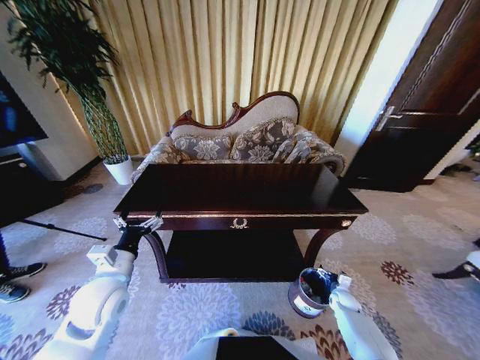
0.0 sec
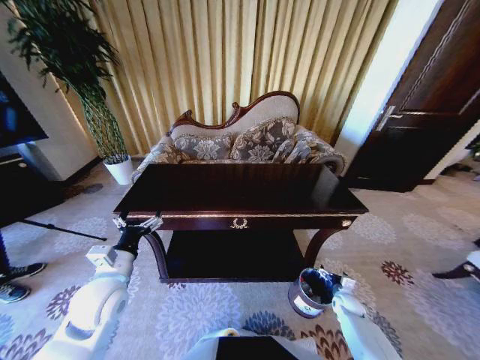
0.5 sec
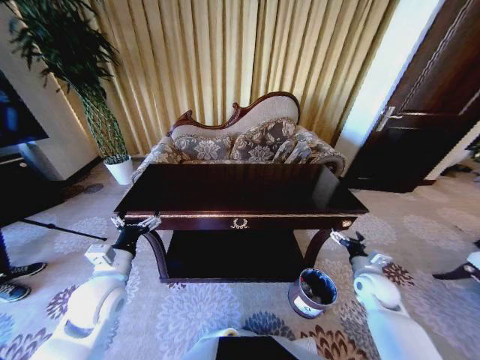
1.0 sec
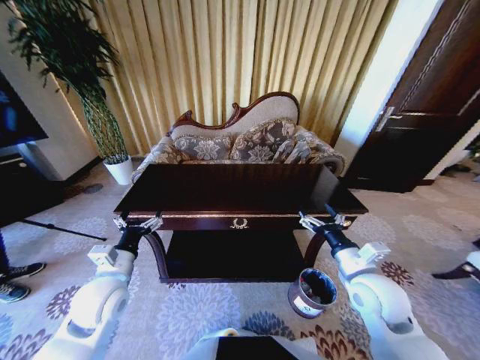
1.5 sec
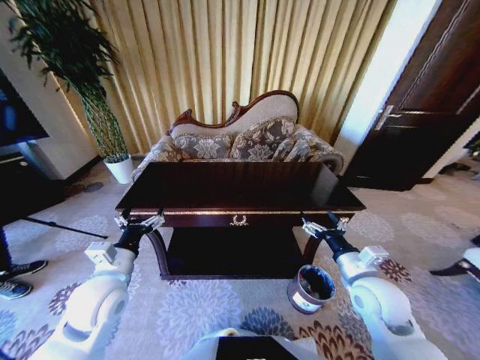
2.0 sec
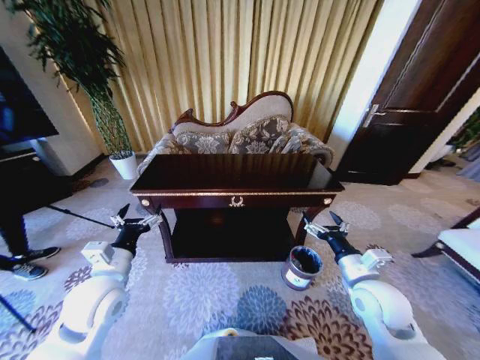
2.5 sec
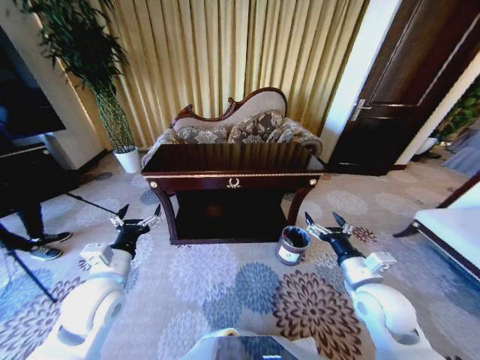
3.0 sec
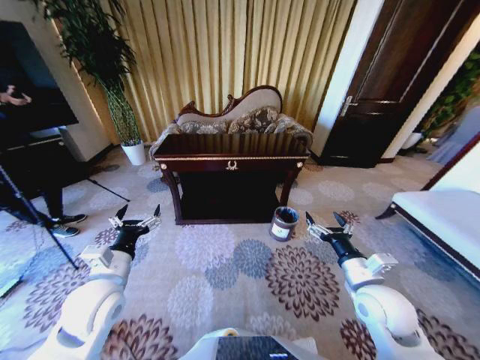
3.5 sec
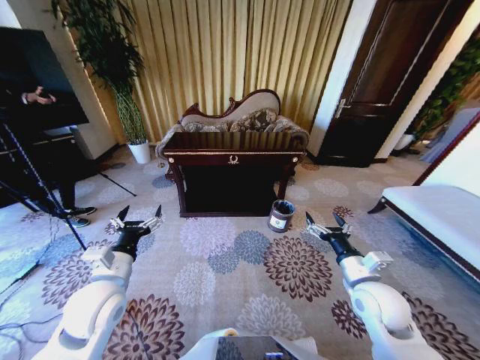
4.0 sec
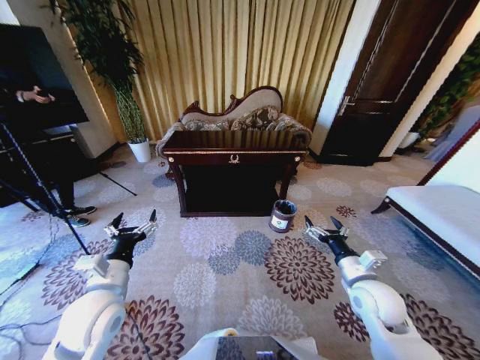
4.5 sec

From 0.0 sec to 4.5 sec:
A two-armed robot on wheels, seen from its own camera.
Task of the whole recording: Move to the front of the table and place the trash on the table into the trash bin.
From 0.0 sec to 2.0 sec: The right gripper goes approximately 35 cm upward and to the left.

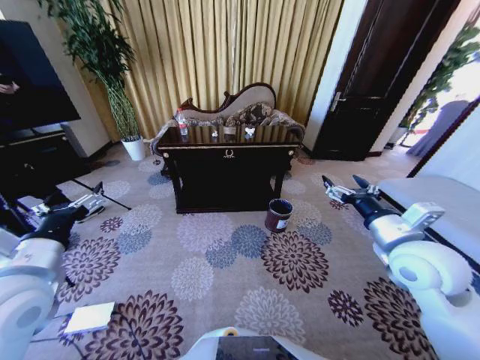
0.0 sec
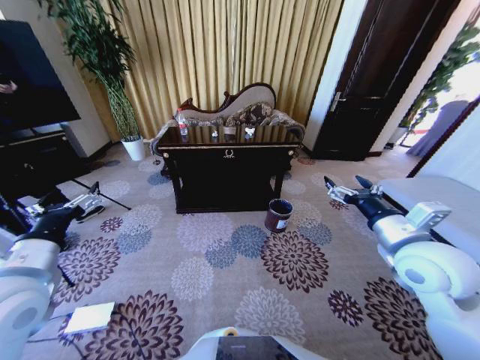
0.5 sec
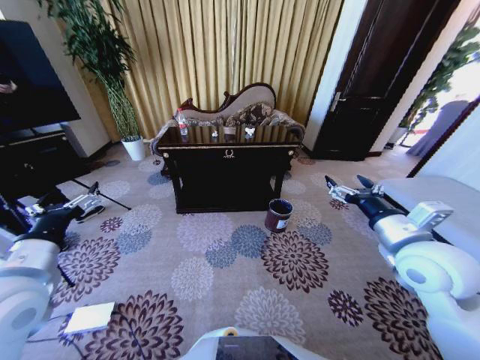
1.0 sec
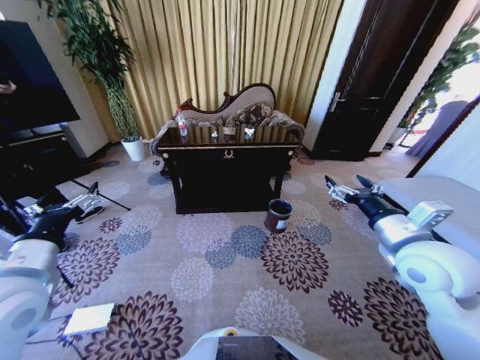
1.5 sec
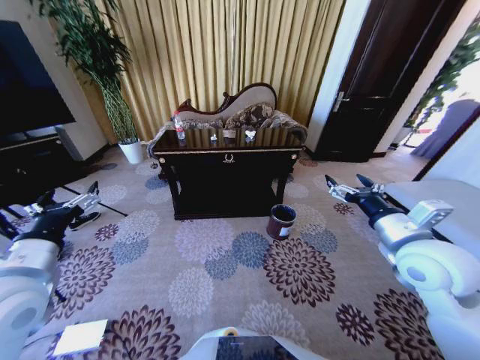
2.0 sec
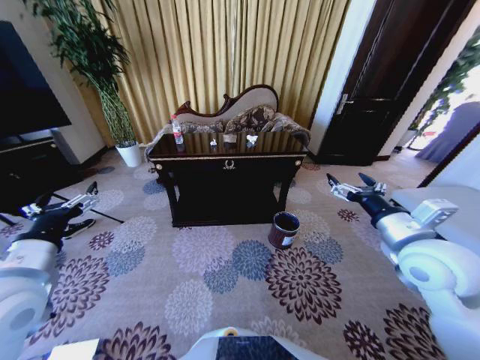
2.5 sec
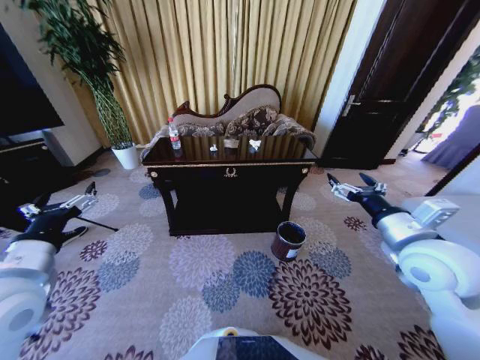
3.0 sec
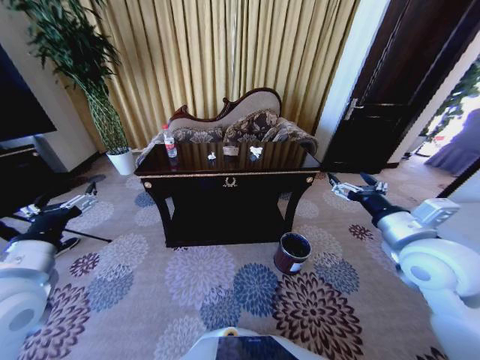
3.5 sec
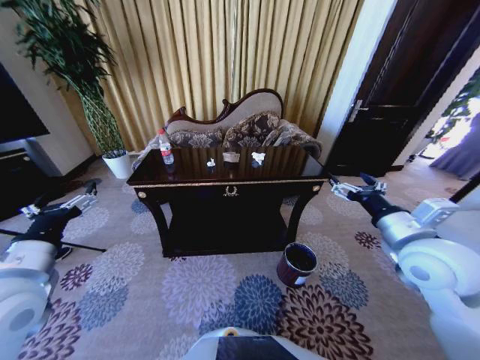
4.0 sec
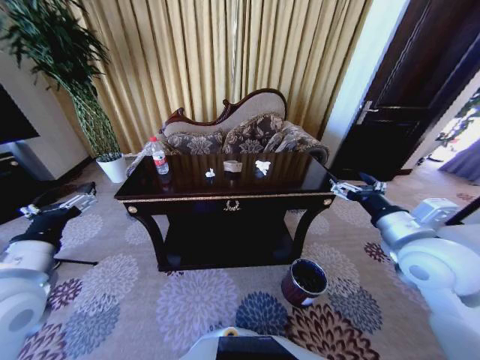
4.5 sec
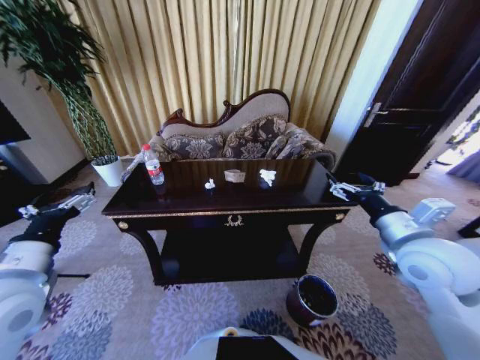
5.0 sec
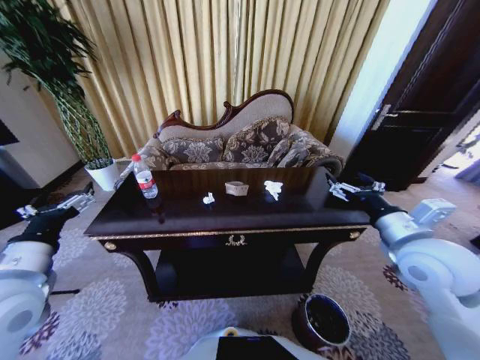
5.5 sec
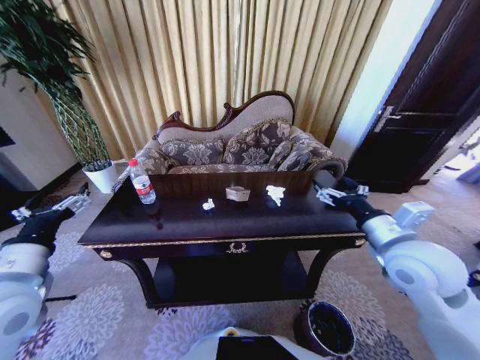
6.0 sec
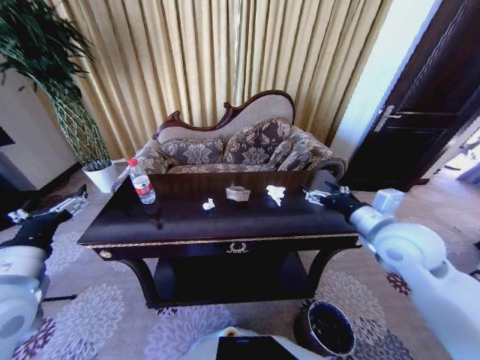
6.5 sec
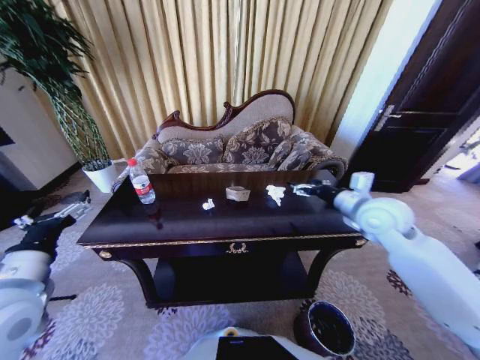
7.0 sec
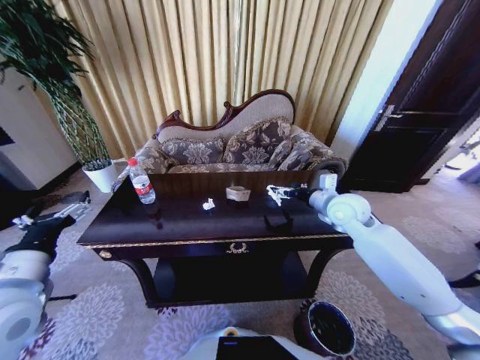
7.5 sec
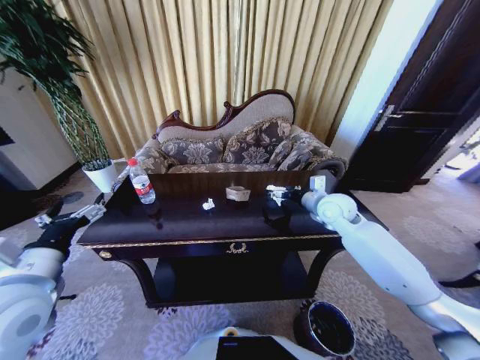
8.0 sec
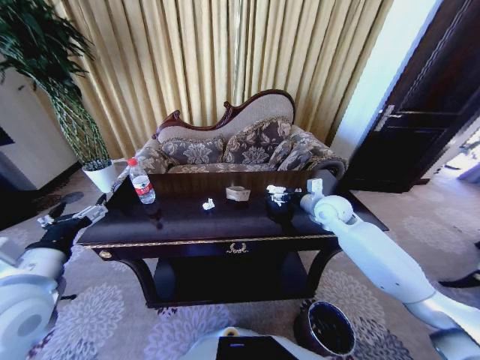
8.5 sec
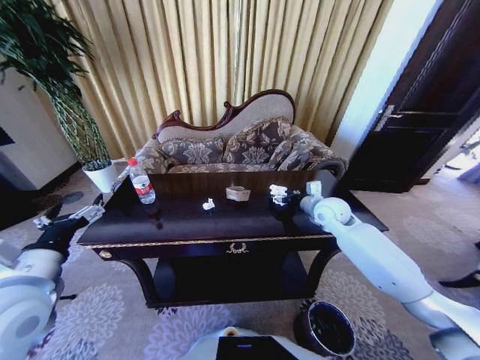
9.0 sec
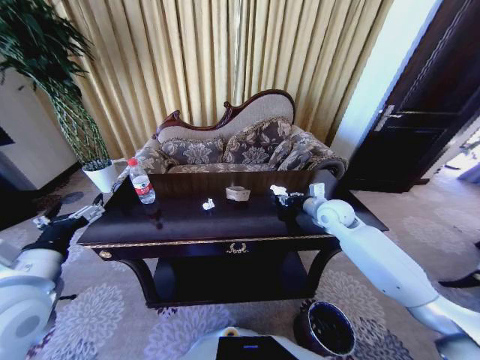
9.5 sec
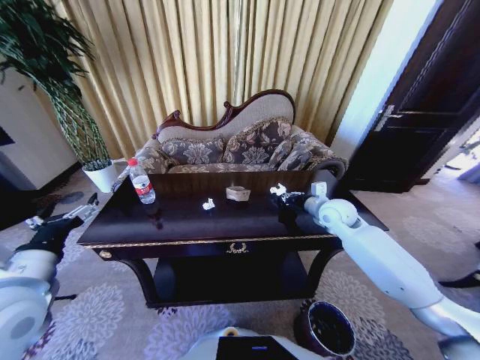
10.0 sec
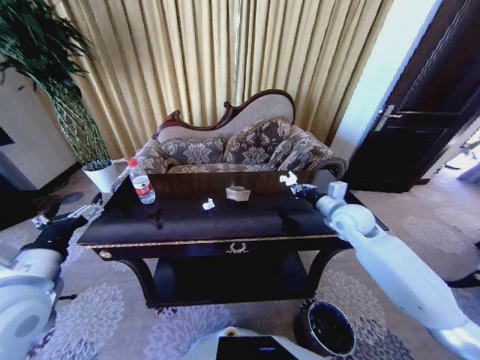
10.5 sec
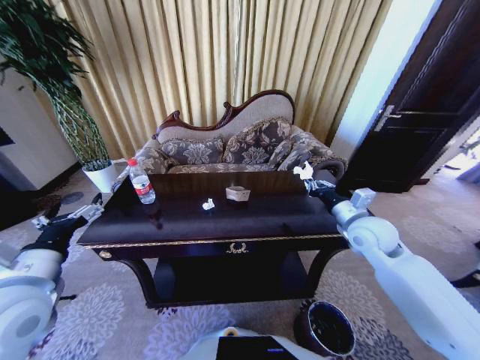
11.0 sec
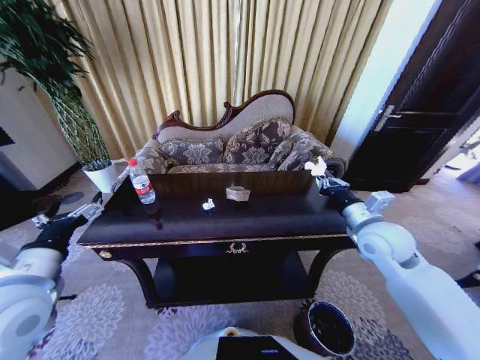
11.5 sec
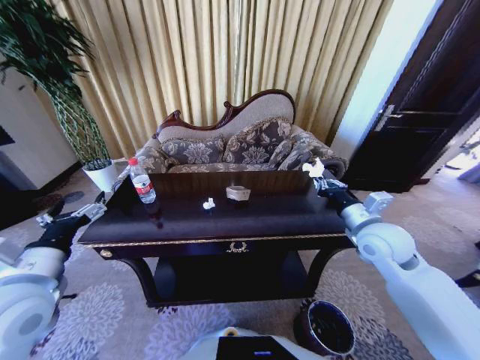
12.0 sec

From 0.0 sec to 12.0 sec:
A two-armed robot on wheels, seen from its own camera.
Task of the whole recording: Move to the front of the table and place the trash on the table into the trash bin.
From 6.0 sec to 8.0 sec: The right gripper goes roughly 20 cm forward.
From 8.0 sec to 10.0 sec: The right gripper closes up.
From 10.0 sec to 12.0 sec: The right gripper moves backward, about 10 cm.

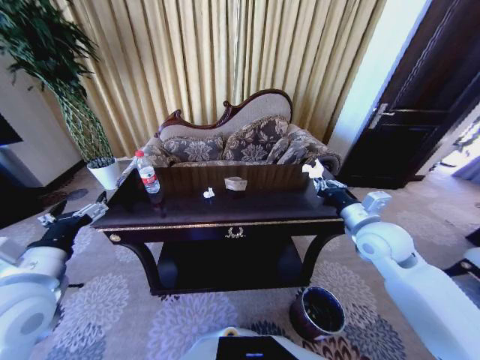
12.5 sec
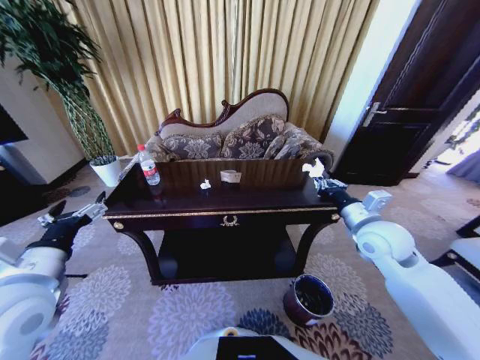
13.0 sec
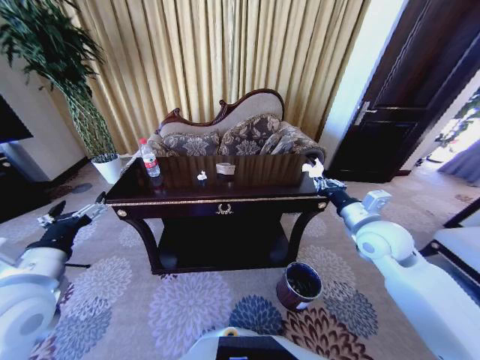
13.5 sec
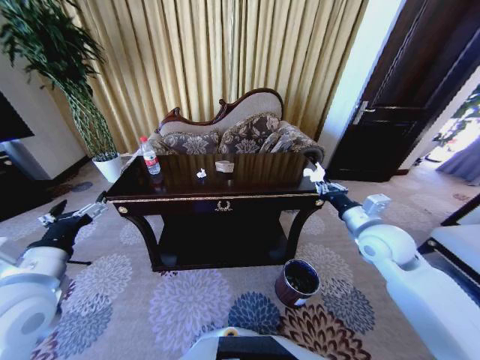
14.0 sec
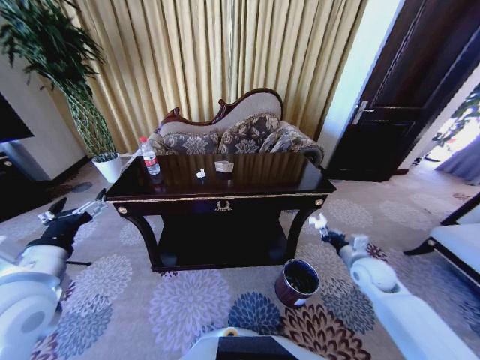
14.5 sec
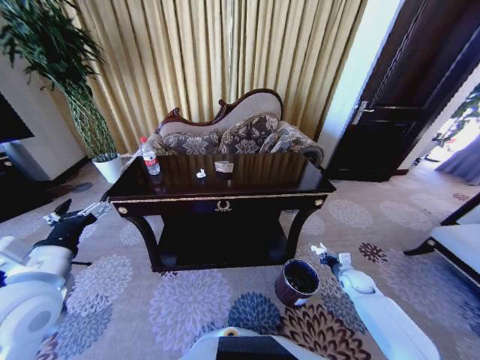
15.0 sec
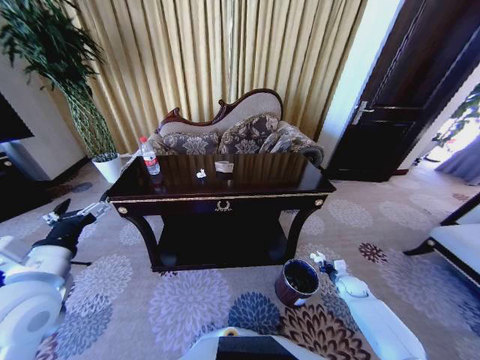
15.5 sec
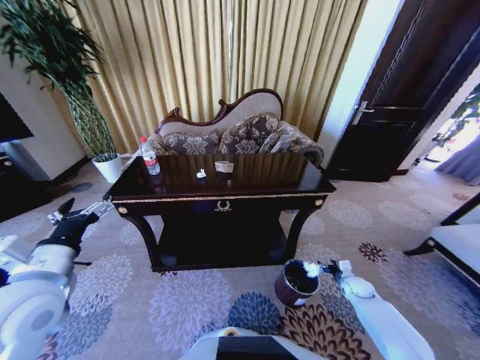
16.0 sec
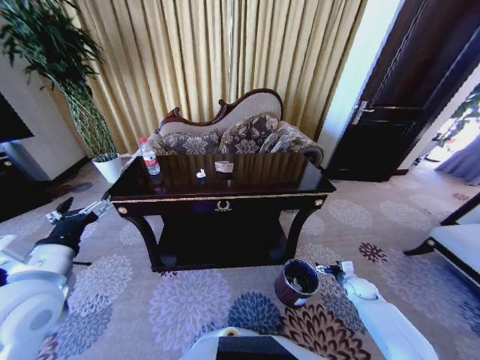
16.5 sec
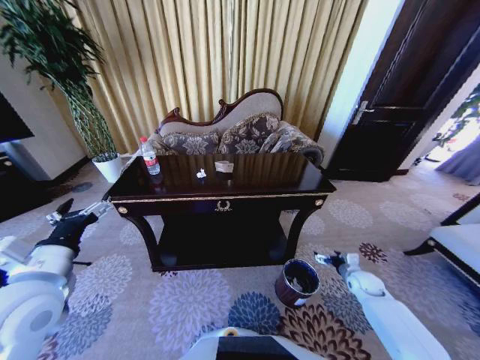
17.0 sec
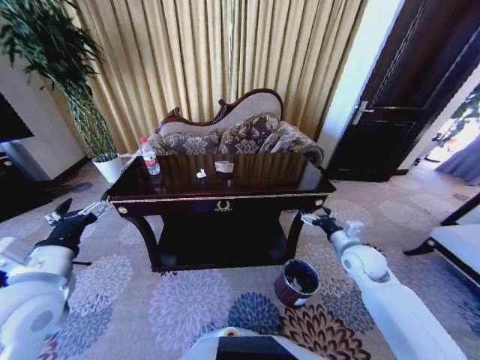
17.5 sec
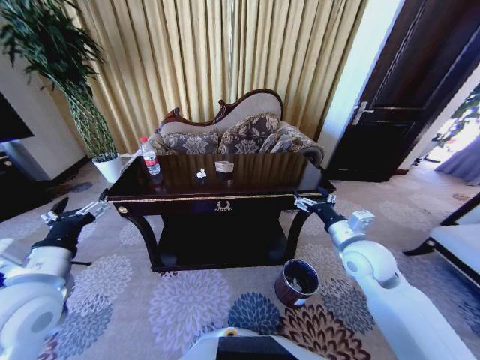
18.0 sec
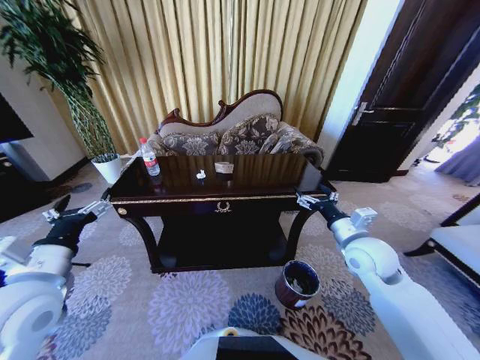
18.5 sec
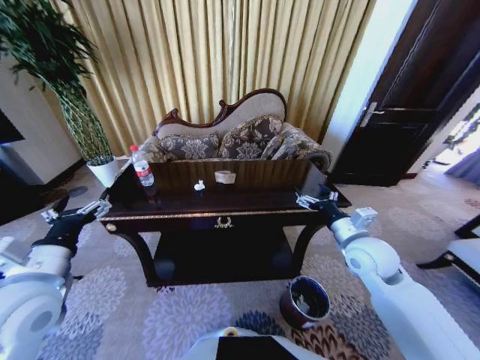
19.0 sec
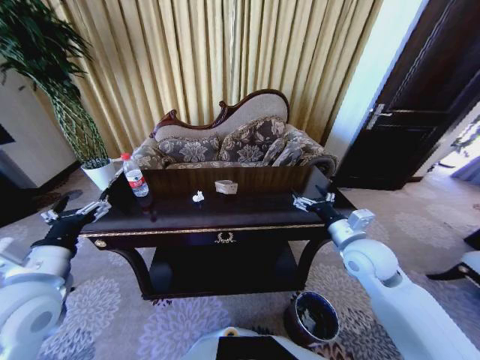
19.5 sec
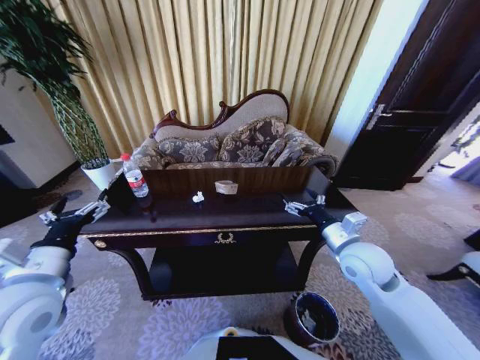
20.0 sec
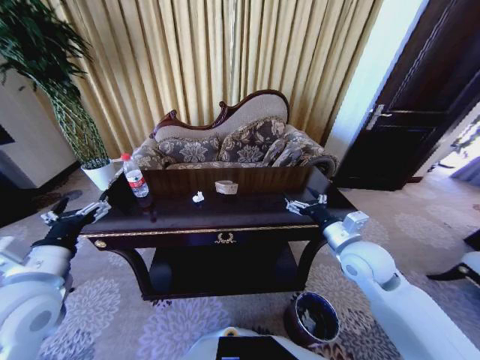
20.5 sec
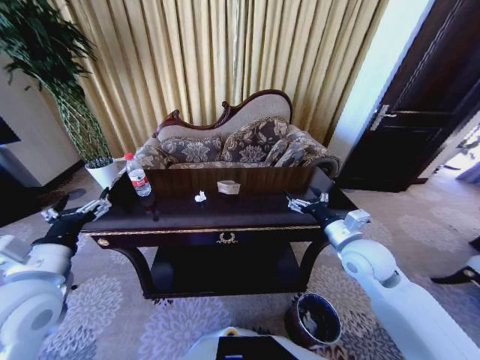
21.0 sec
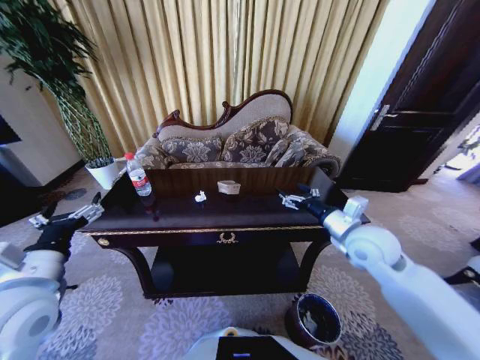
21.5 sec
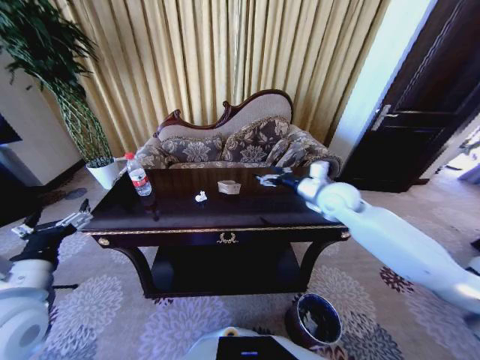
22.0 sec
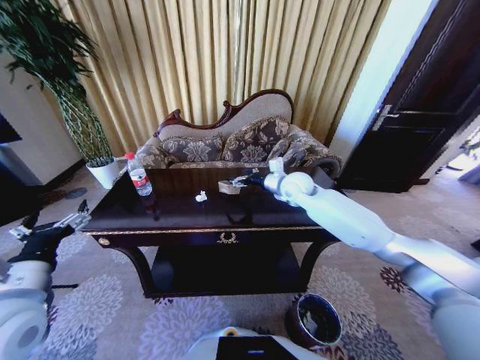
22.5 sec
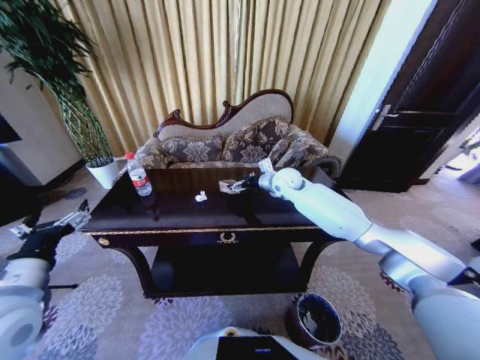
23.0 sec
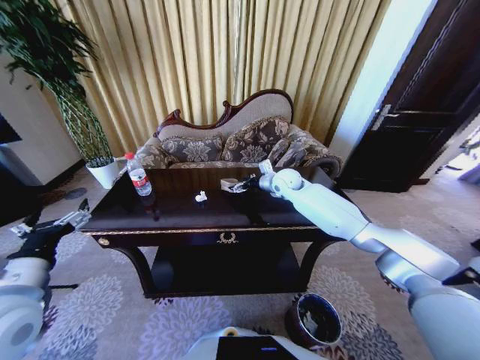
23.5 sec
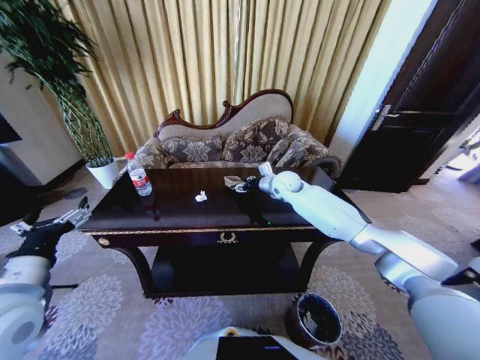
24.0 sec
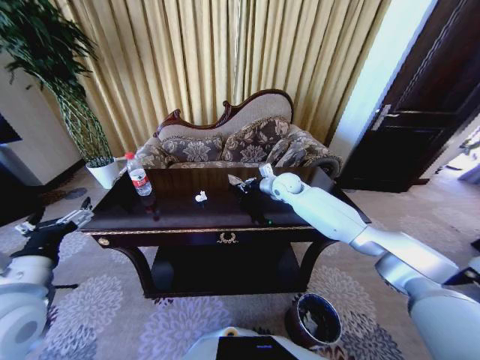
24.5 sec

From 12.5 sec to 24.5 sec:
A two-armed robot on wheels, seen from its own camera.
Task of the whole recording: Move to the front of the table and place the trash on the table into the trash bin.
From 12.5 sec to 14.5 sec: The right gripper heads downward and to the right, covering approximately 15 cm.
From 14.5 sec to 16.5 sec: The right gripper goes approximately 20 cm downward, and opens up.
From 16.5 sec to 18.5 sec: The right gripper is displaced upward and to the left by some 35 cm.
From 20.5 sec to 22.5 sec: The right gripper goes roughly 25 cm forward and to the left.
From 22.5 sec to 24.5 sec: The right gripper changes place by roughly 5 cm, and closes up.
